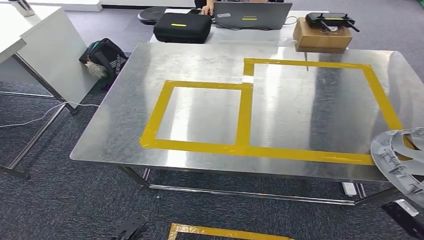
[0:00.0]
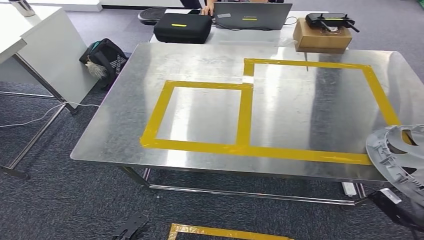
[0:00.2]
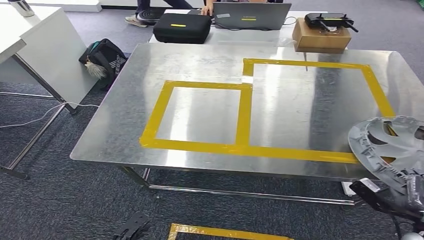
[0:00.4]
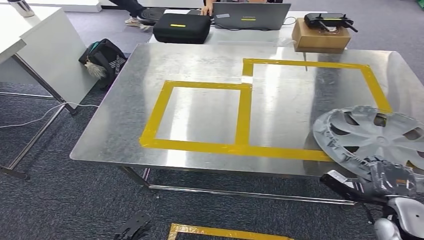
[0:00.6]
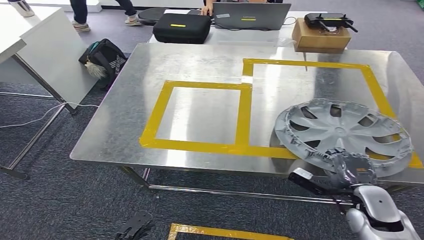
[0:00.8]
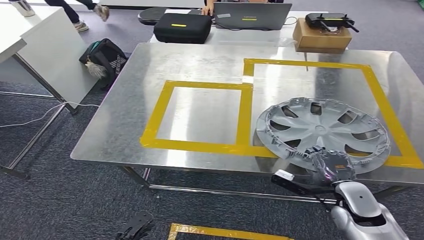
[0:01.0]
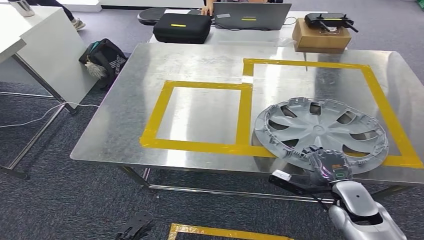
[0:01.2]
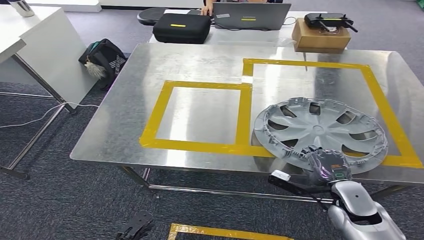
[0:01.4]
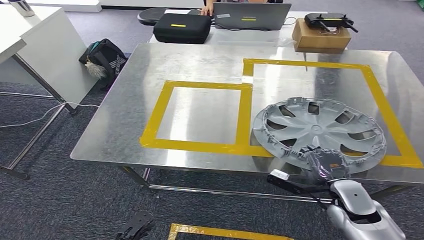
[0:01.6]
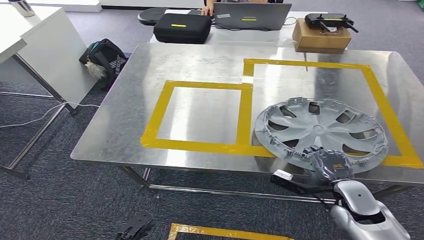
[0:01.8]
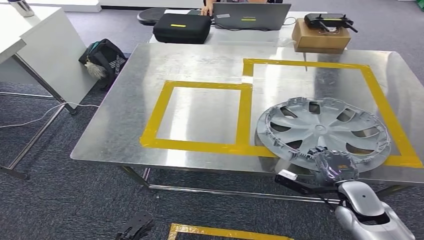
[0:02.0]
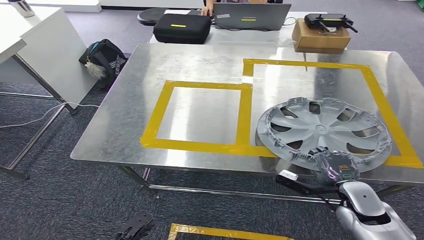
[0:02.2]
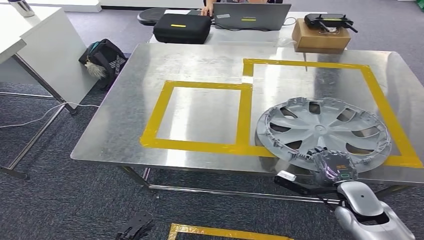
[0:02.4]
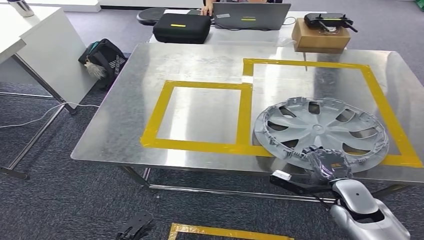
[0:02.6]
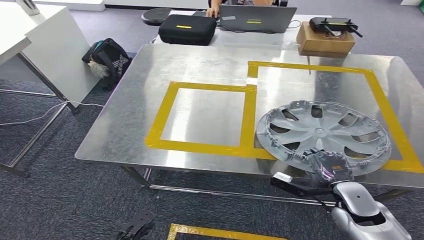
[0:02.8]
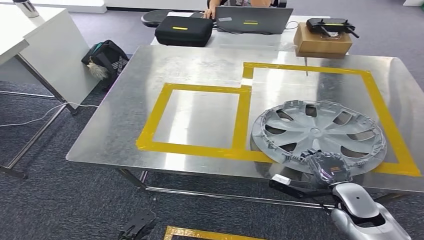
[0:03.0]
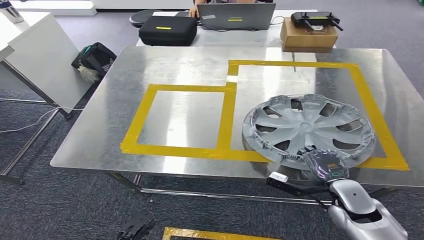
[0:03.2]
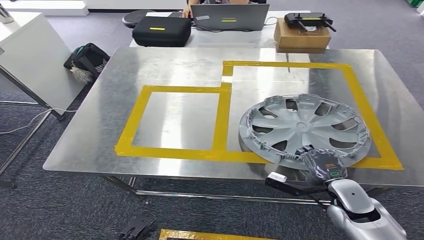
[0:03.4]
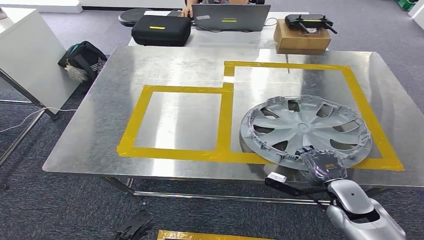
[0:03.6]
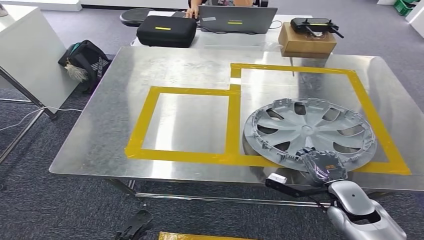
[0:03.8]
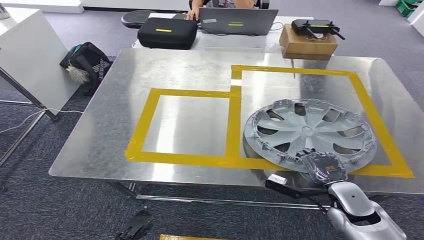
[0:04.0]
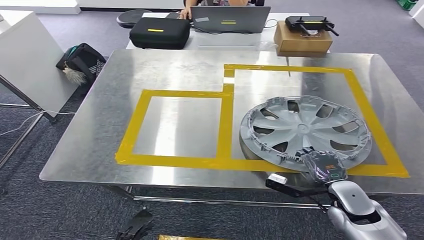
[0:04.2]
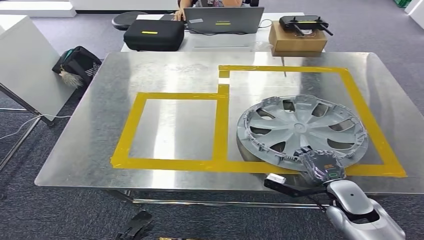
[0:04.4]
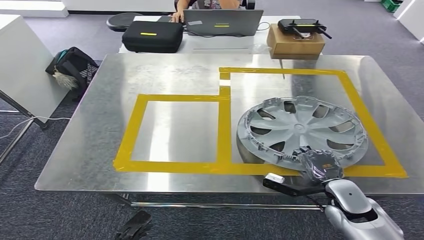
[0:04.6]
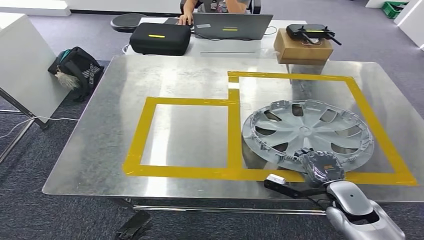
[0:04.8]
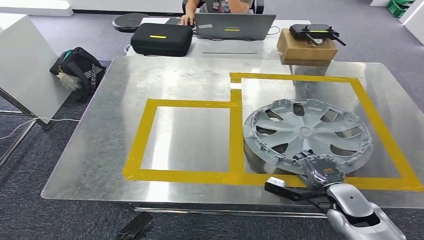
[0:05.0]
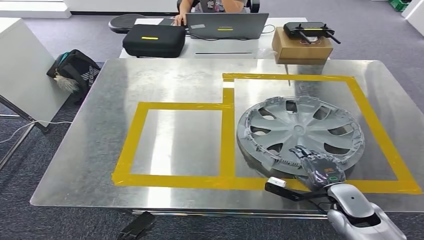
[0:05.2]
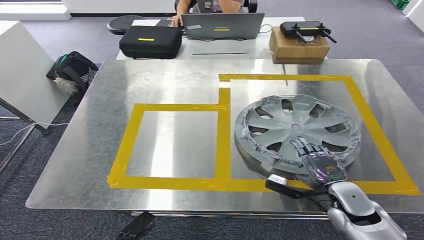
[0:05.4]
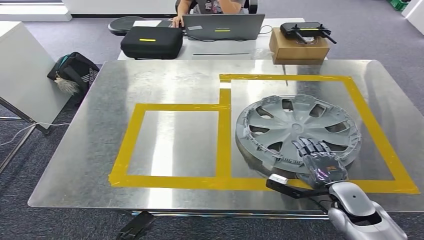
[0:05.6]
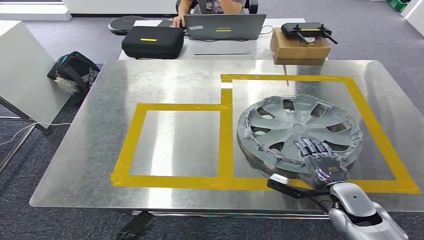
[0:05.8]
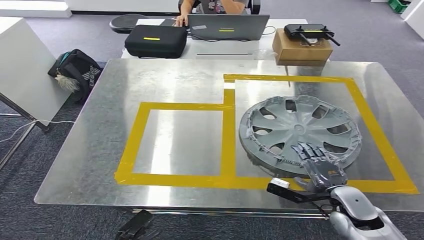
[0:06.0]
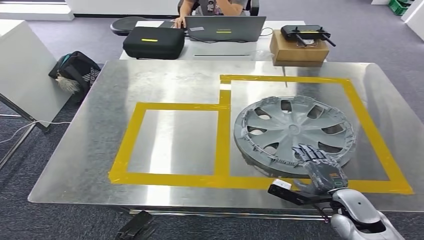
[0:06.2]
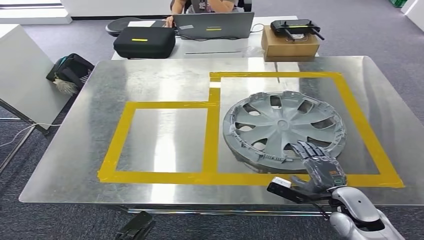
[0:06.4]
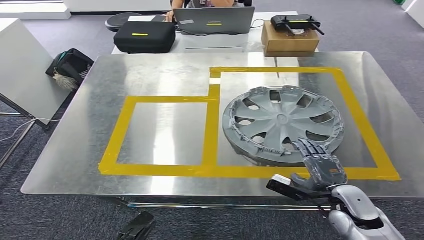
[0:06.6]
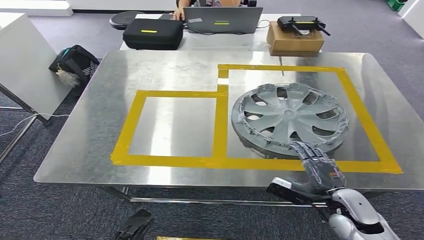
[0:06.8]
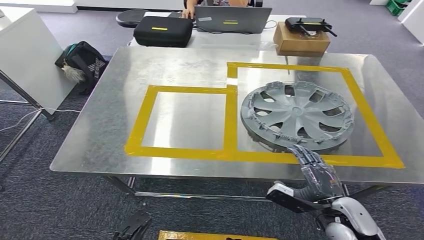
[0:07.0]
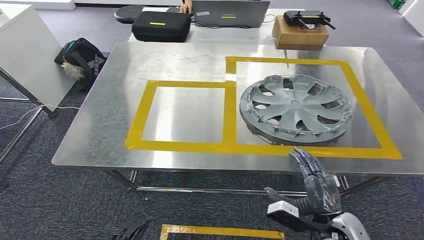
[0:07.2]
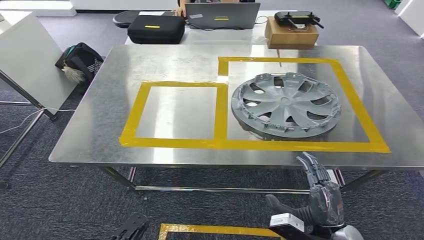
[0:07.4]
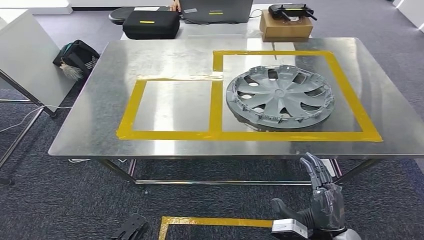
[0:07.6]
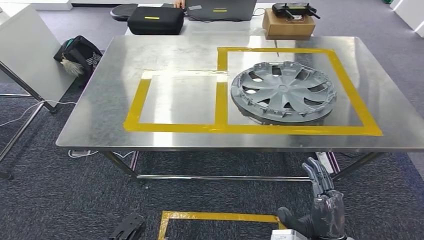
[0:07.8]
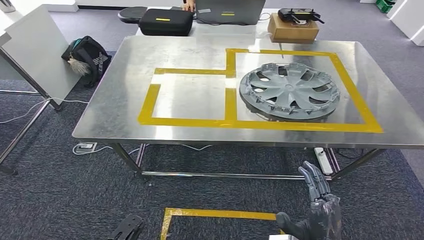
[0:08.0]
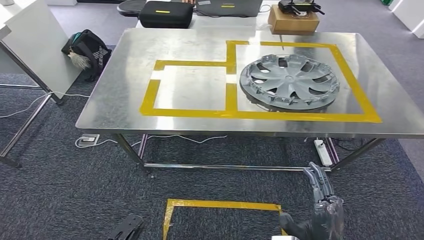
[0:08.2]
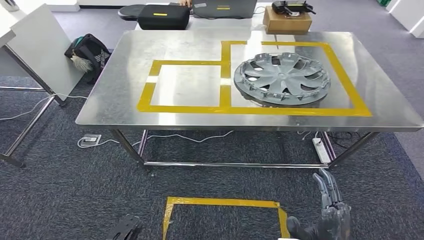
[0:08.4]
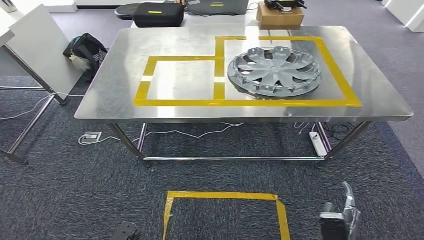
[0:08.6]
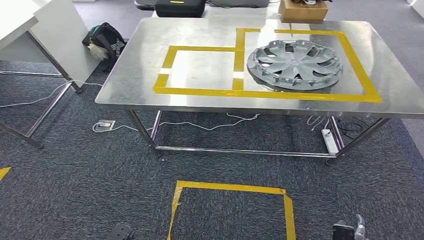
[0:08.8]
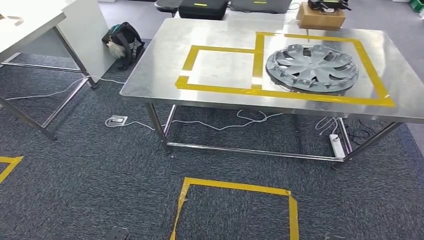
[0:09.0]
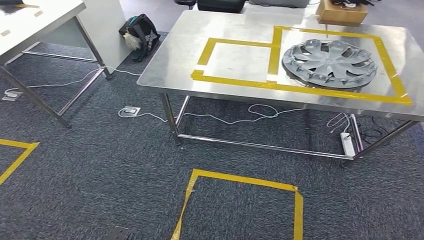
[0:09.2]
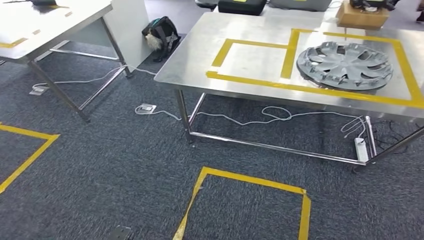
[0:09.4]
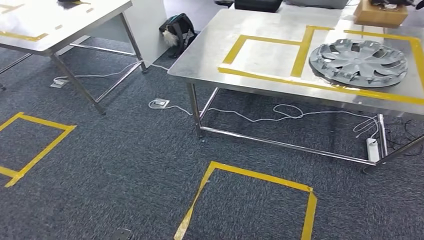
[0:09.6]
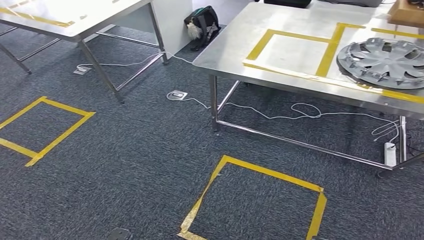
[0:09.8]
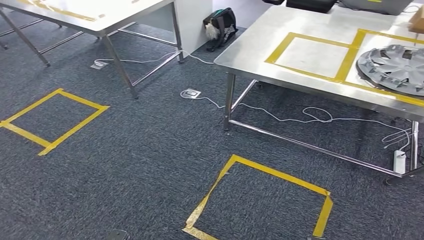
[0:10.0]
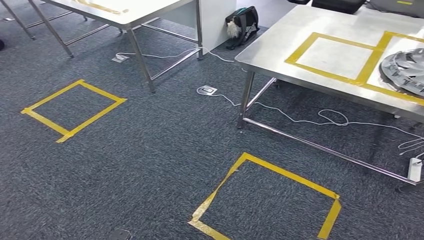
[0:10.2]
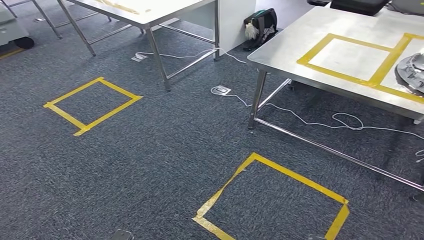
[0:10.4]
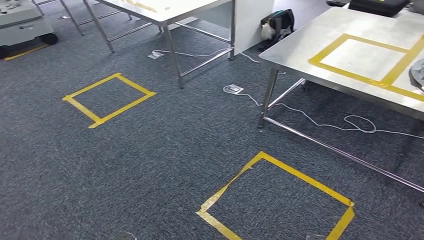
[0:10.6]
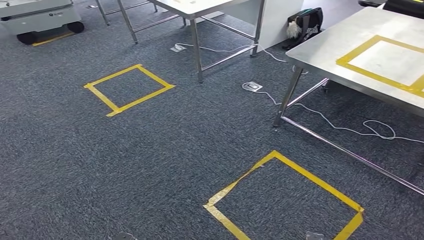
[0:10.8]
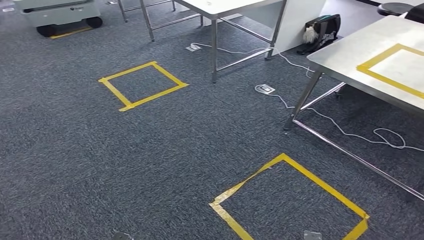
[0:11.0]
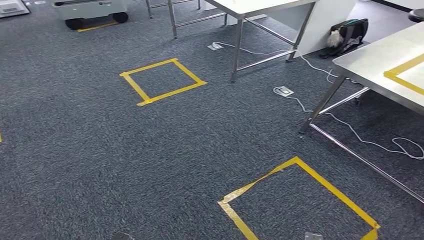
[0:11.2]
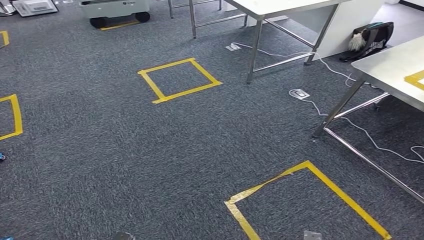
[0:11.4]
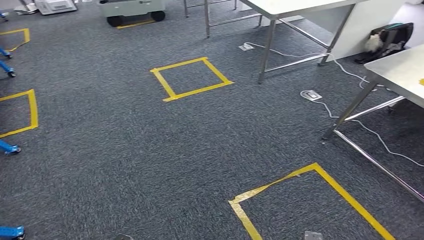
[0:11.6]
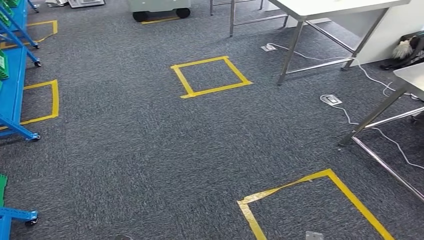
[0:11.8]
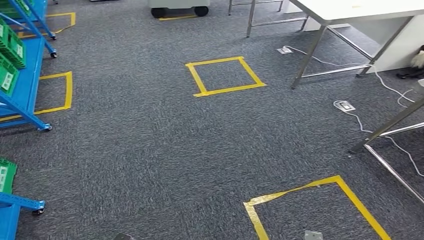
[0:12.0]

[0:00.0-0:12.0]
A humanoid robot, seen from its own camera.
Step, 0:00.0 to 0:07.4: Insert the small component into the corresponding slot on the workbench.
0:00.0 to 0:01.6: The right hand is displaced to the left and forward by some 20 cm.

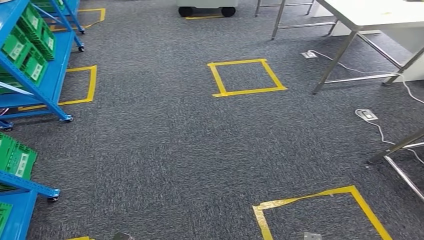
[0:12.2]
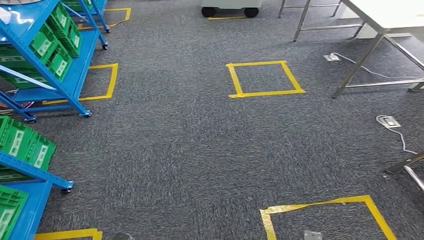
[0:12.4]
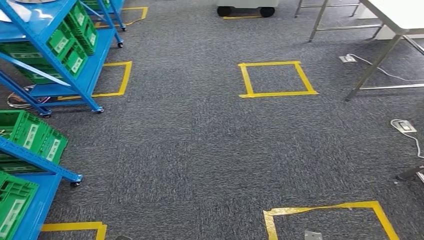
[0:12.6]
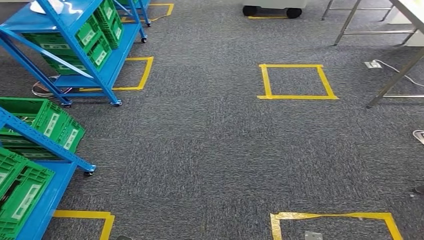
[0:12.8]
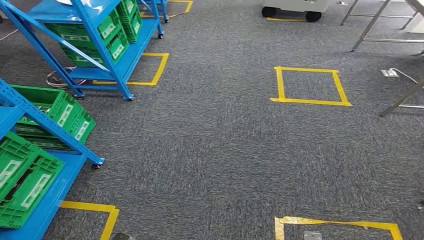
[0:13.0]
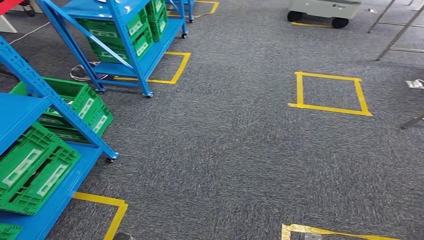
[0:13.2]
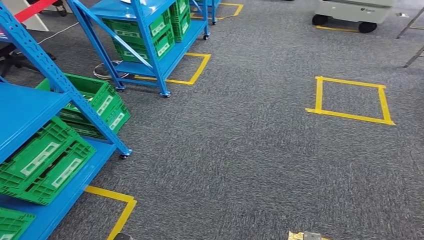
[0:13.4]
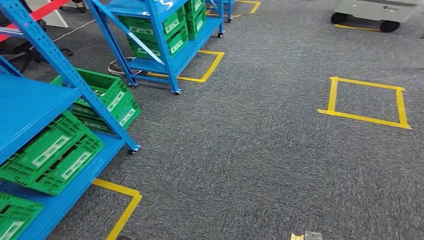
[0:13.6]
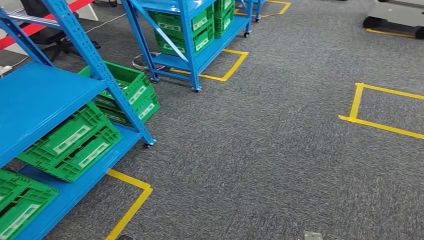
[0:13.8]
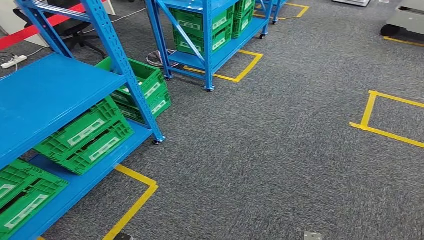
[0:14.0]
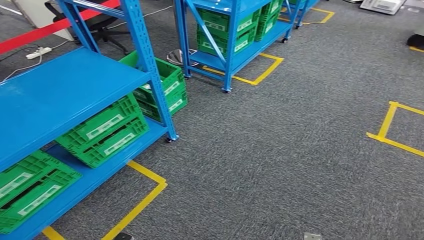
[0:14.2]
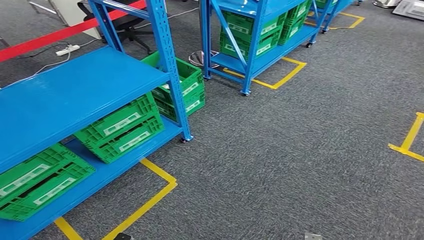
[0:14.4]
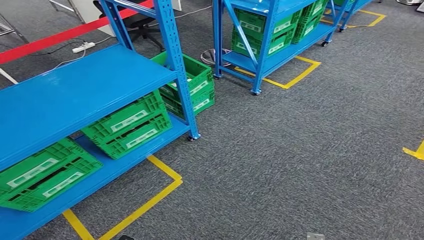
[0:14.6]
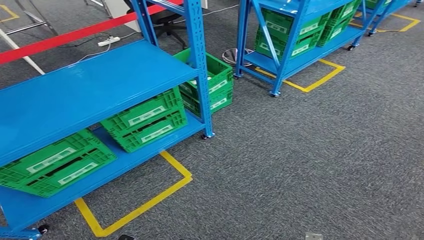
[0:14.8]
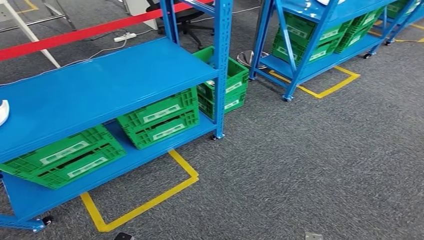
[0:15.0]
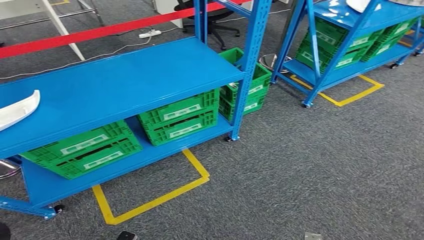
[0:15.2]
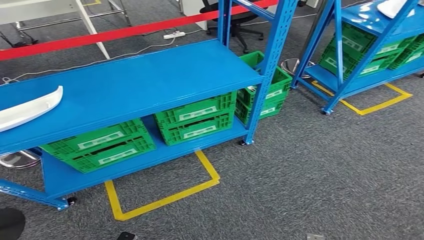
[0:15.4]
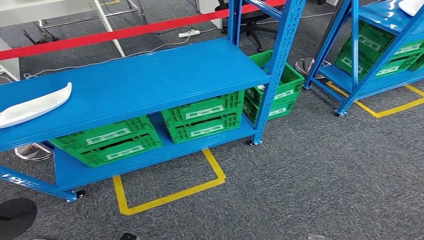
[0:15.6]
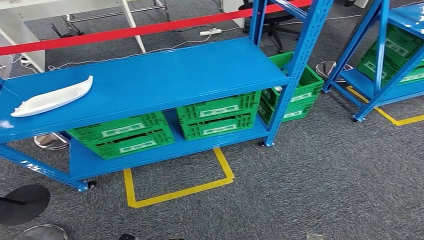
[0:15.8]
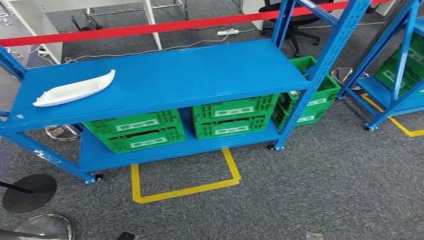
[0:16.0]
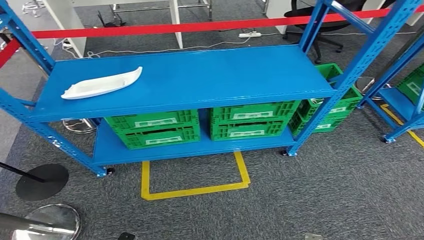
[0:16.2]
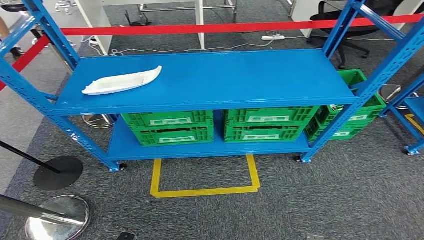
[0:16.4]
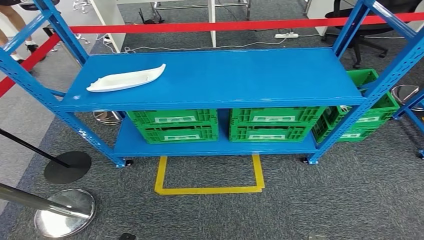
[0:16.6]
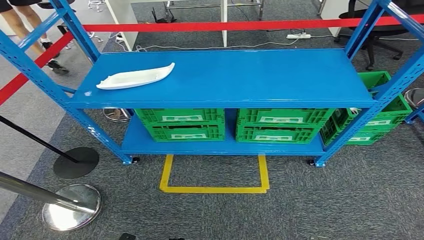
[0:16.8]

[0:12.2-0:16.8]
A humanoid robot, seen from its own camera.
Step, 0:12.2 to 0:16.8: Move to the initial position of the workbench.
